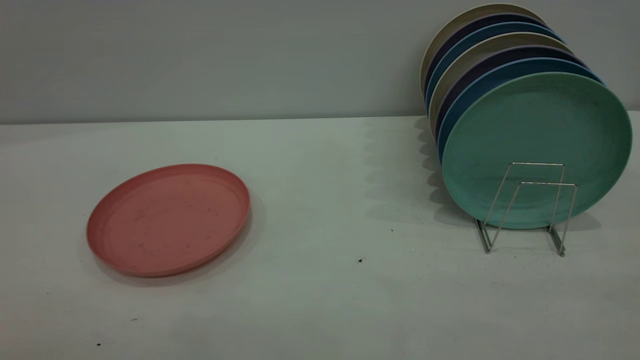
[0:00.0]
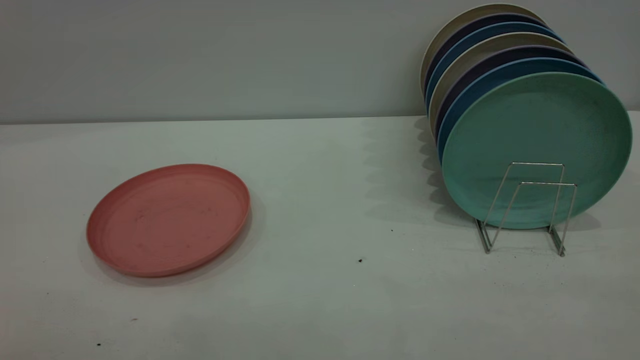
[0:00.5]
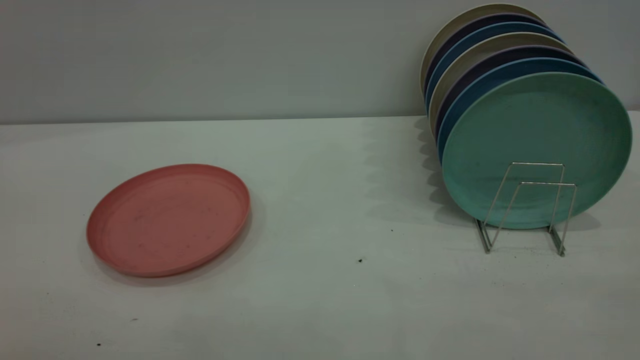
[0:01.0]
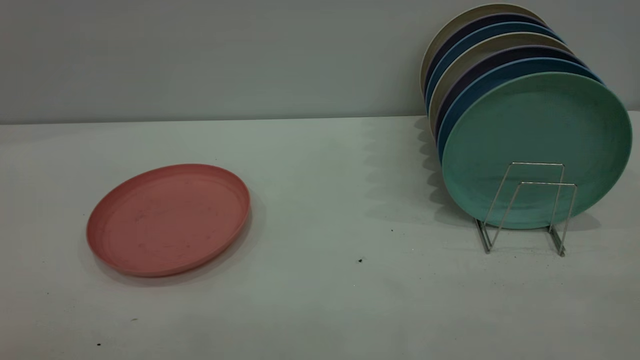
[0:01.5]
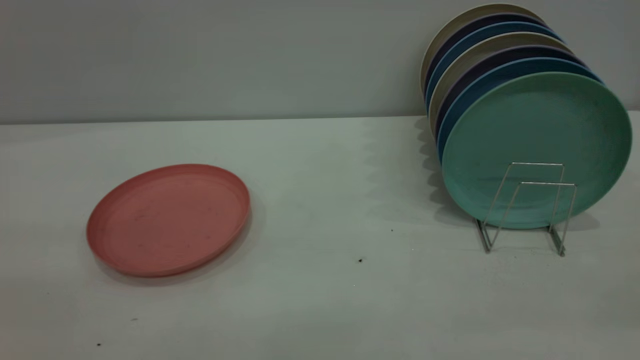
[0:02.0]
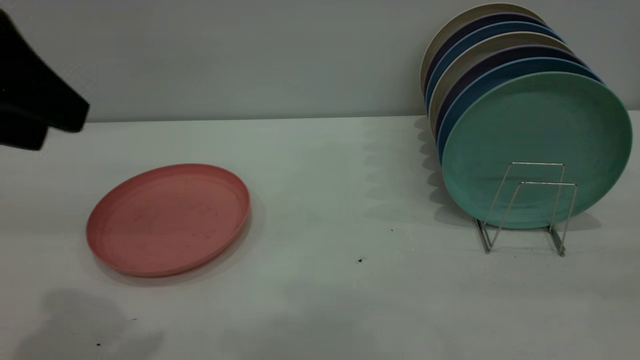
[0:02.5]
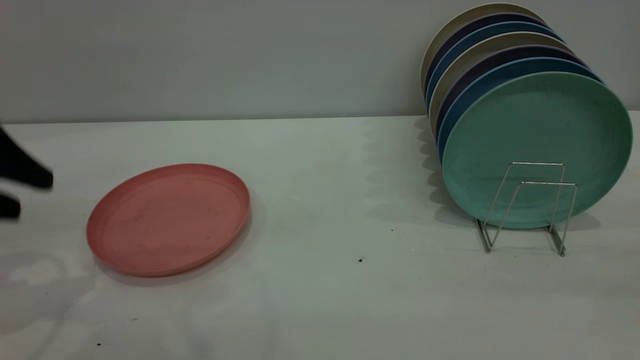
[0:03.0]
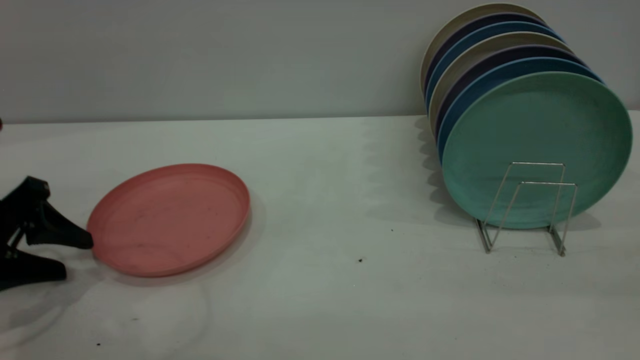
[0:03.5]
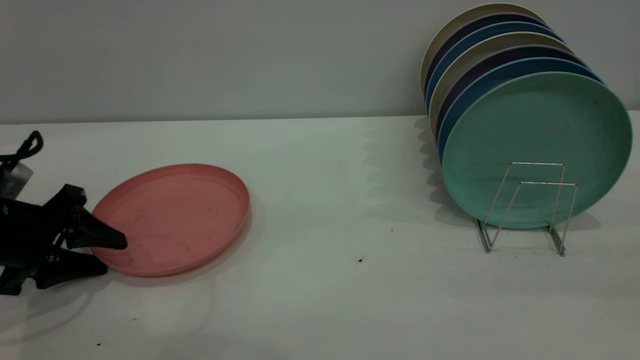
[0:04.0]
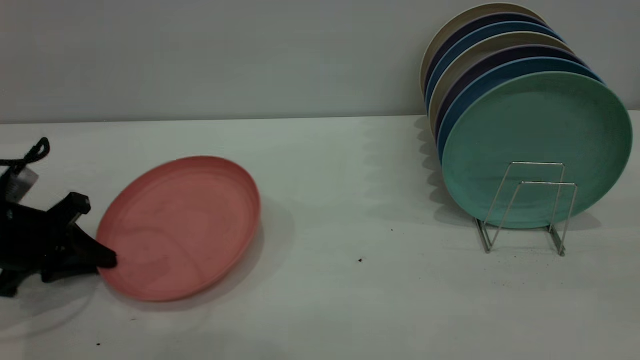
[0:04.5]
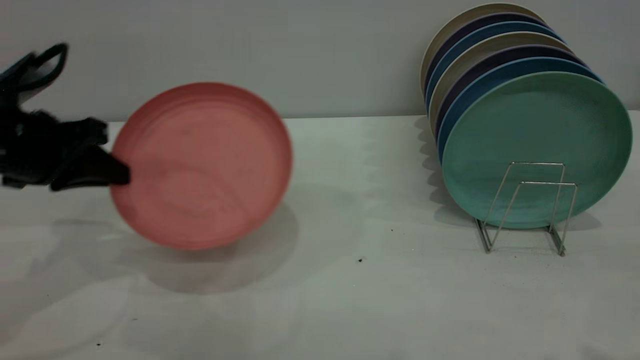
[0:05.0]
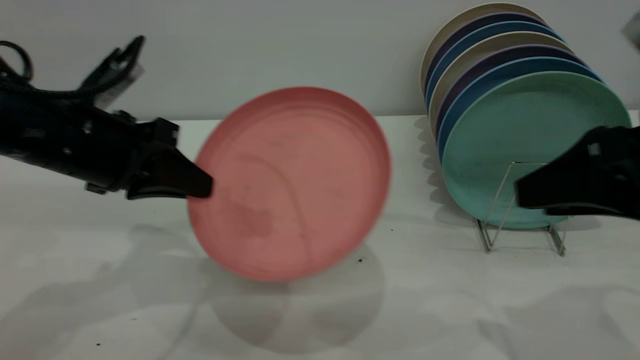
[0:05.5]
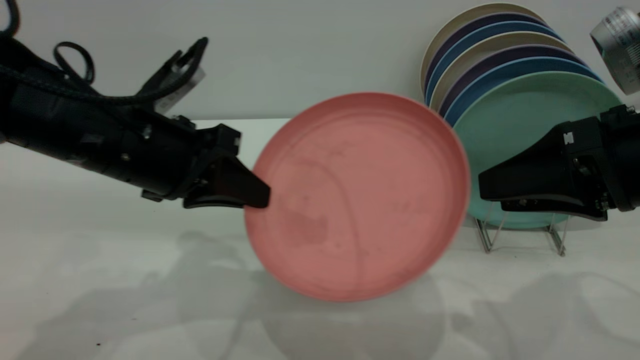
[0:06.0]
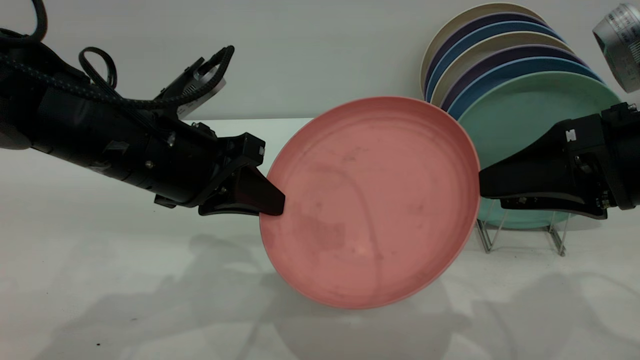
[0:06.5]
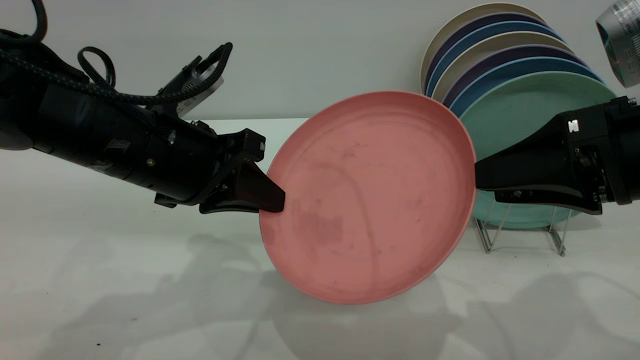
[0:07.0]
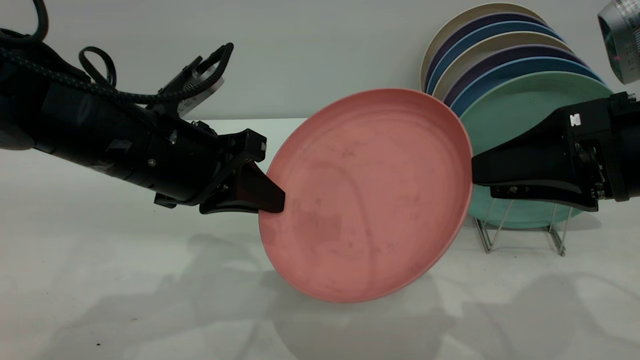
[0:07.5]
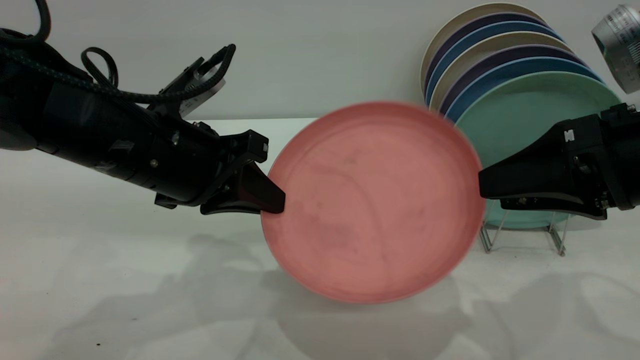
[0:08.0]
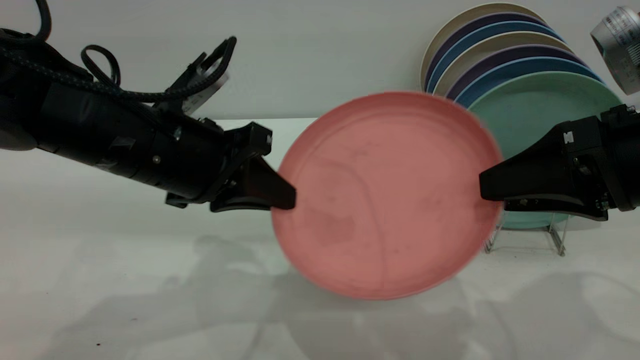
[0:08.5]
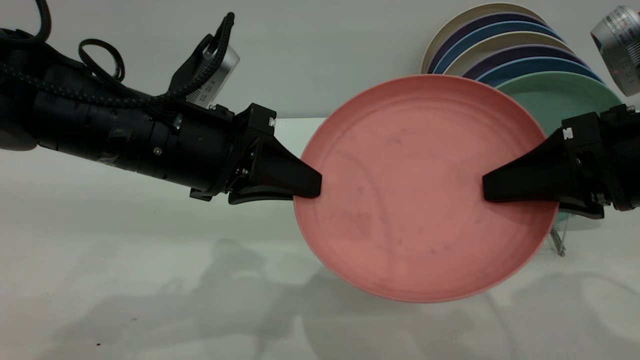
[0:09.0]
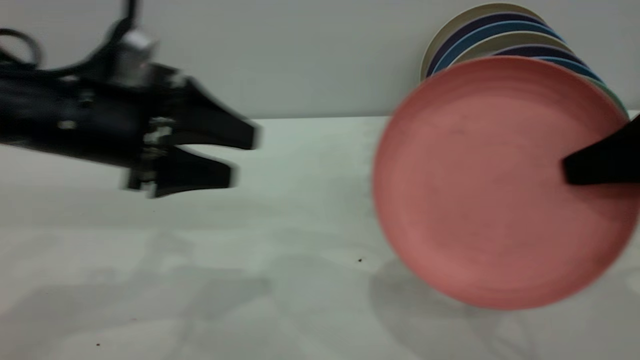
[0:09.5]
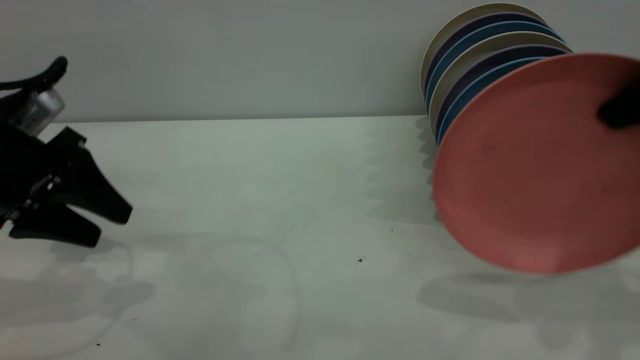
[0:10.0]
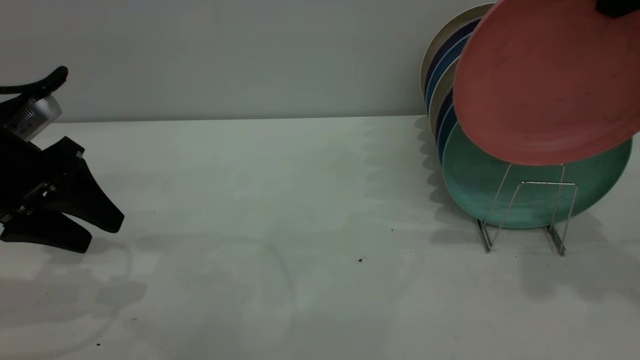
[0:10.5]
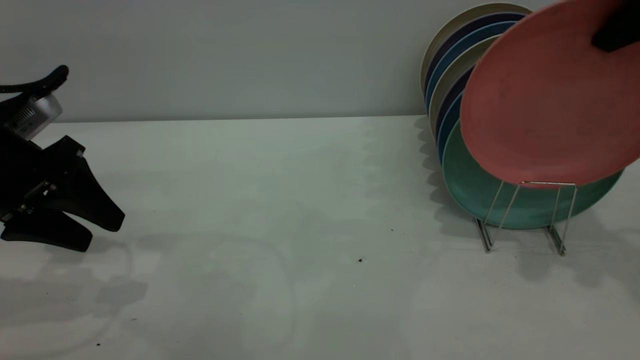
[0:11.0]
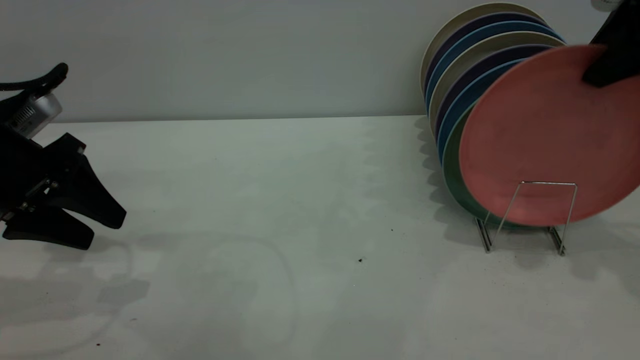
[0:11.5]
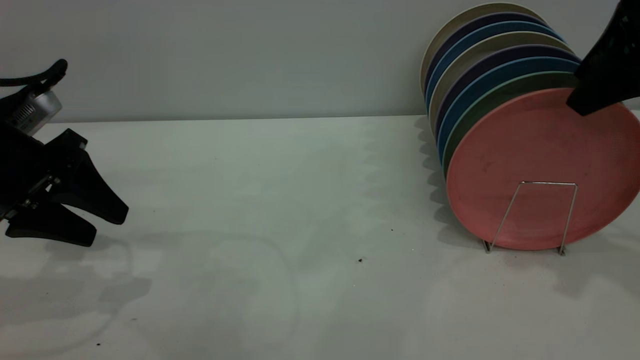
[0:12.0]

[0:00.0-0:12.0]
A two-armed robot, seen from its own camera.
Task of the whole recording: the left gripper grasp the pink plate, the left gripper pass the pink plate to the right gripper, and the right gripper place the pink plate on the plate rack.
Step, 0:00.0 to 0:04.5: Pick up the plate with the left gripper.
Step, 0:05.0 to 0:09.0: Pass the plate from the left gripper to the right gripper.
0:02.0 to 0:04.0: The left gripper shifts approximately 35 cm downward and forward.
0:04.0 to 0:06.0: The left gripper goes approximately 20 cm to the right and upward, and closes. The right gripper shifts some 25 cm forward and downward.
0:06.0 to 0:08.0: There are only small adjustments of the grippers.
0:08.0 to 0:10.0: The right gripper moves upward, approximately 10 cm, and closes; the left gripper shifts approximately 15 cm to the left, and opens.
0:10.0 to 0:12.0: The right gripper is displaced forward by about 5 cm, and opens its fingers.
